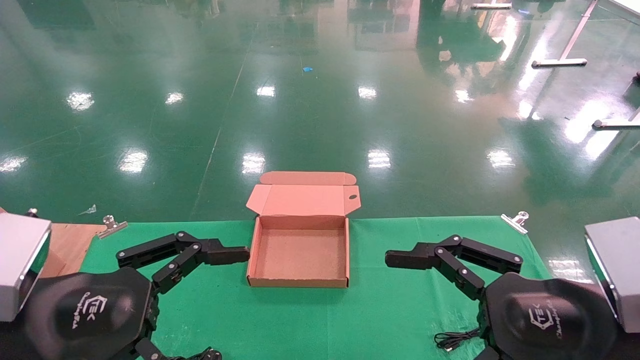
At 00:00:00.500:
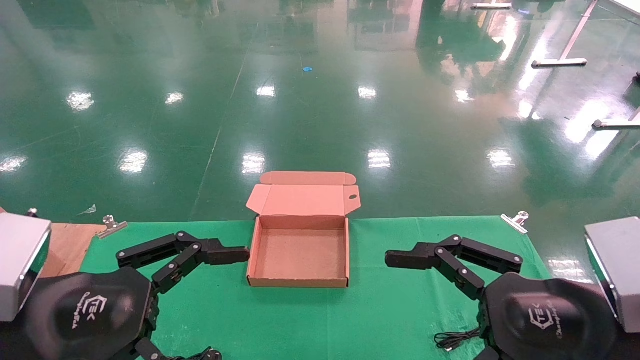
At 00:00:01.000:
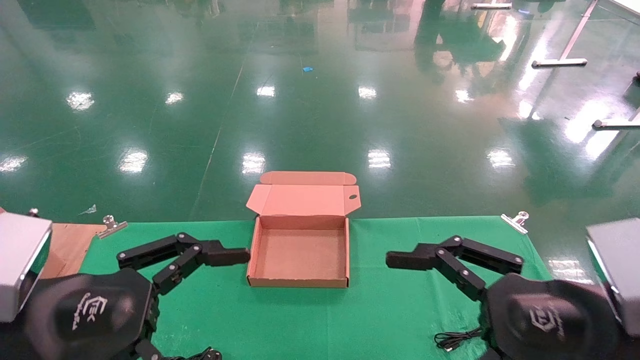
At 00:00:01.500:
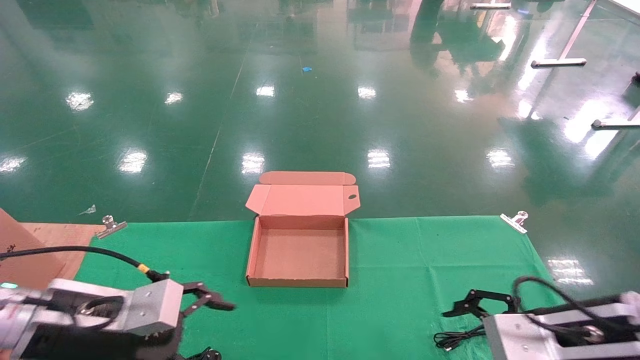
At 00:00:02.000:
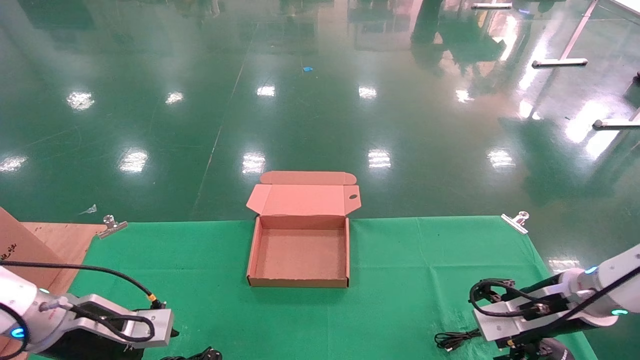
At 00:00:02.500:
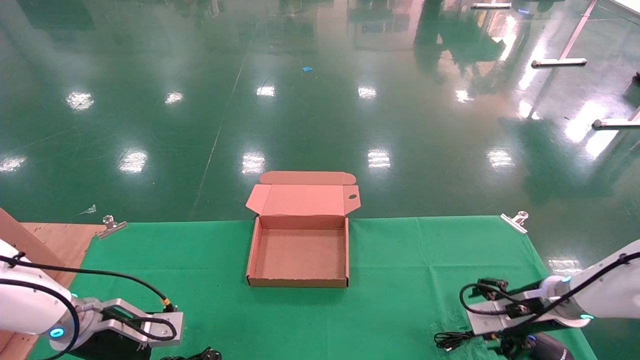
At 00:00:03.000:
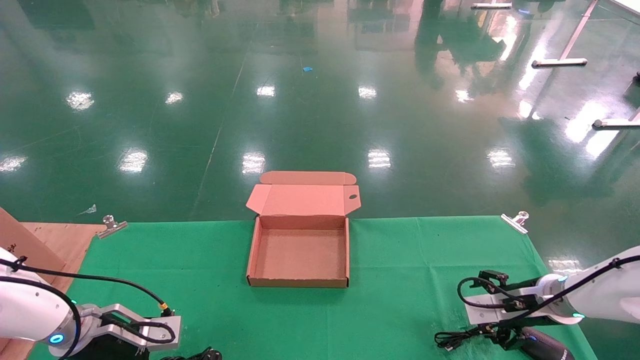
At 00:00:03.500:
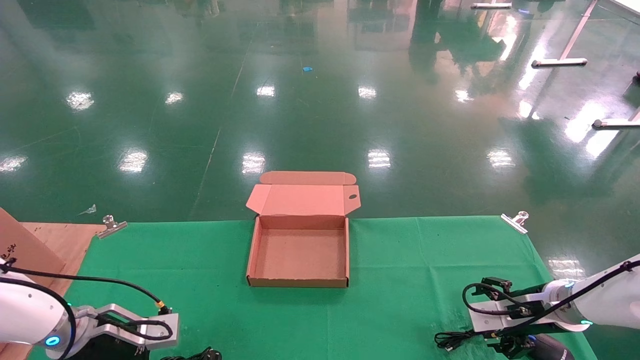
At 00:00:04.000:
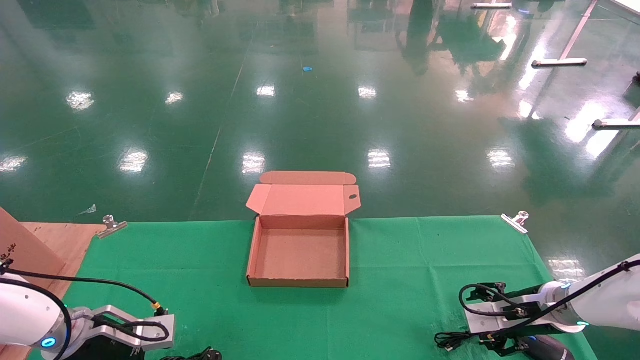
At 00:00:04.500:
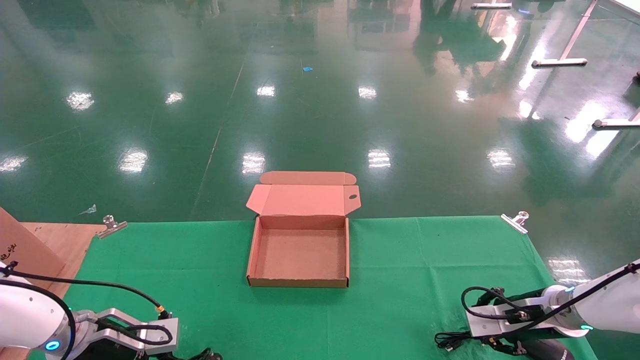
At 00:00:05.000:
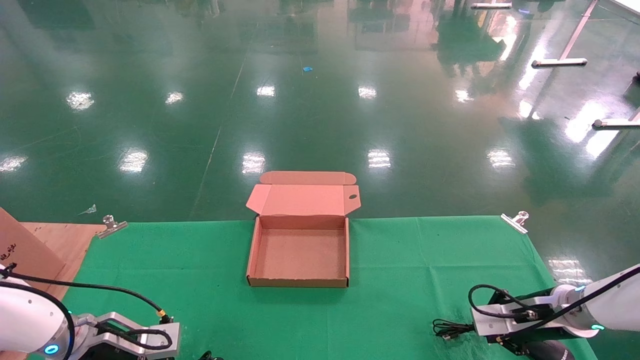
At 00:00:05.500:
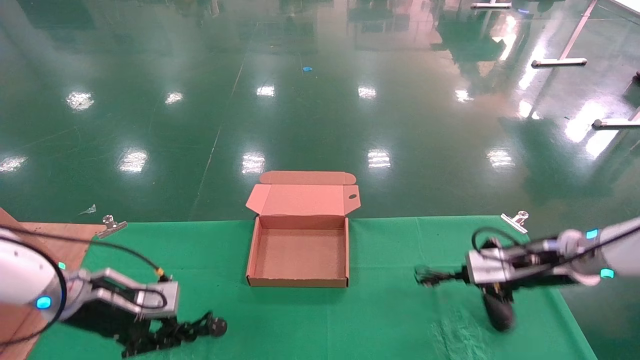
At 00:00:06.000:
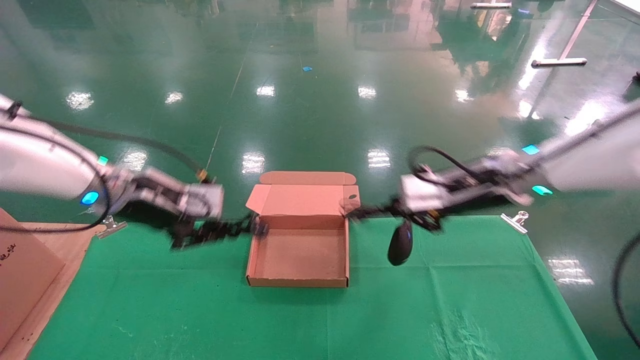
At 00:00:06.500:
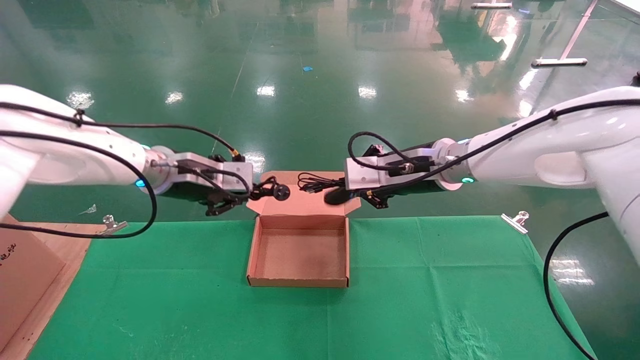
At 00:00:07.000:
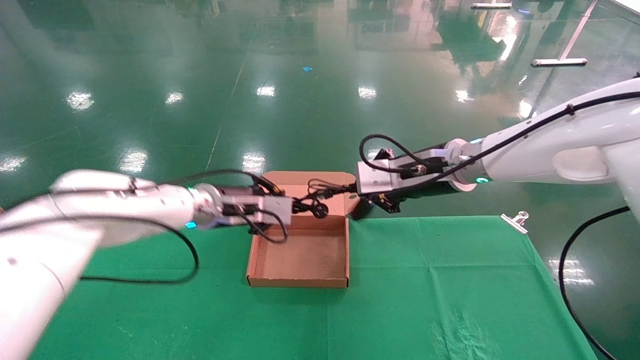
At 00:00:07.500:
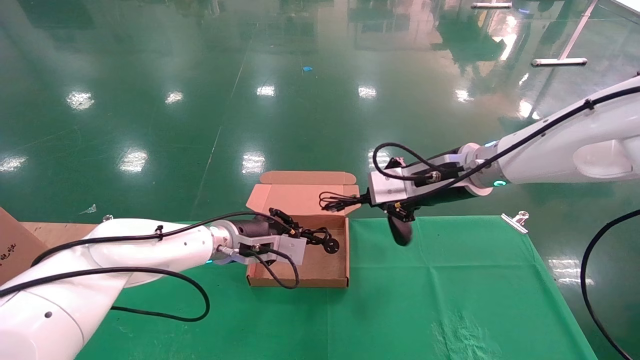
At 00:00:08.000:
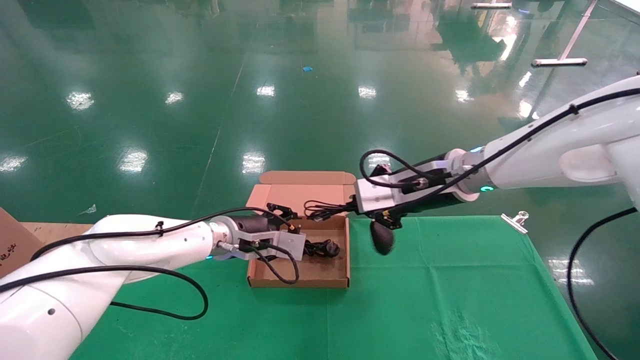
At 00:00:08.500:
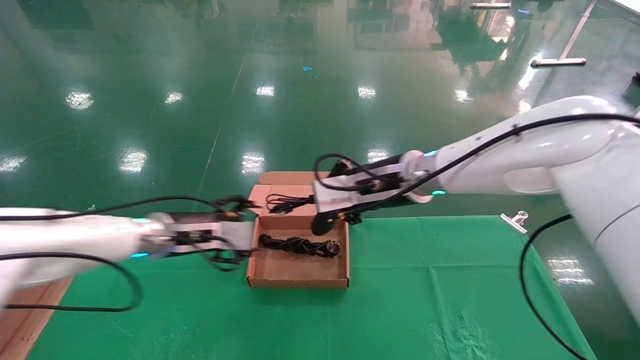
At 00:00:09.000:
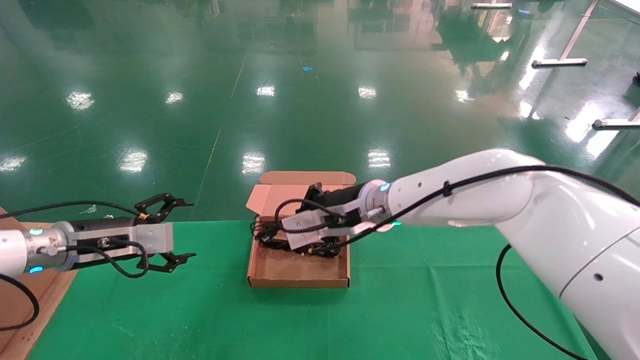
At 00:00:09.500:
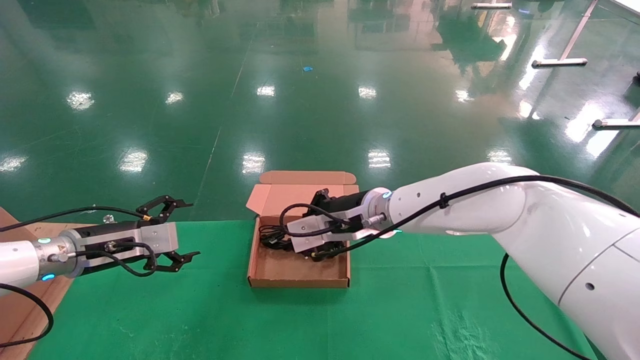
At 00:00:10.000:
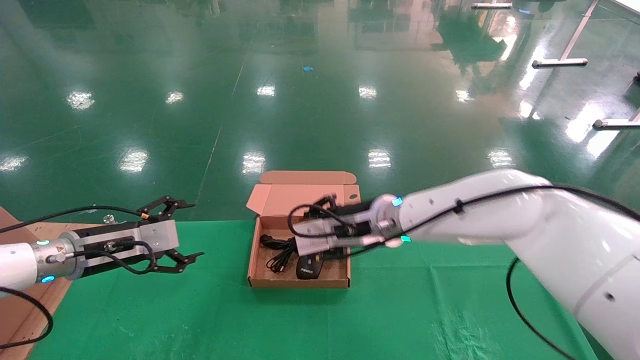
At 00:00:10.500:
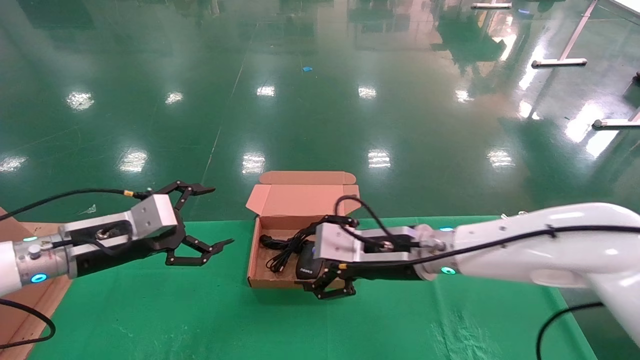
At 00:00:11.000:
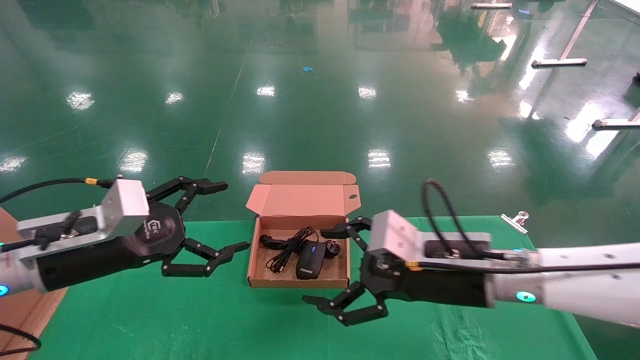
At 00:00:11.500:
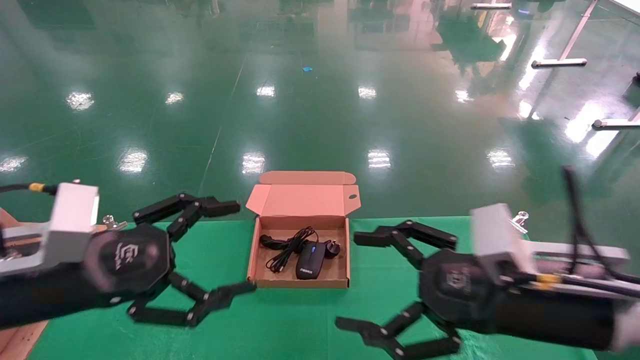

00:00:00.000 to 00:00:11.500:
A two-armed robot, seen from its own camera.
Step, 00:00:01.500 to 00:00:05.000: Grab and lift both the mouse and power cord from the accessory packaging area at the same time.
Step, 00:00:05.500 to 00:00:10.000: Place the mouse and power cord into the box.
00:00:00.000 to 00:00:02.000: Both grippers travel together forward and downward, some 20 cm.
00:00:02.000 to 00:00:04.000: The left gripper is displaced downward by some 5 cm, while the right gripper shifts roughly 10 cm downward and forward.
00:00:04.000 to 00:00:06.000: The right gripper shifts some 25 cm upward and to the left, and closes. The left gripper is displaced upward and to the right by some 20 cm, and closes up.
00:00:06.000 to 00:00:07.500: The left gripper moves to the right, downward and forward, about 15 cm.
00:00:07.500 to 00:00:09.500: The left gripper is displaced to the left by some 20 cm, and opens up. The right gripper is displaced to the left and downward by some 15 cm.
00:00:09.500 to 00:00:11.500: The two grippers go some 25 cm backward and to the right. The right gripper opens up.
